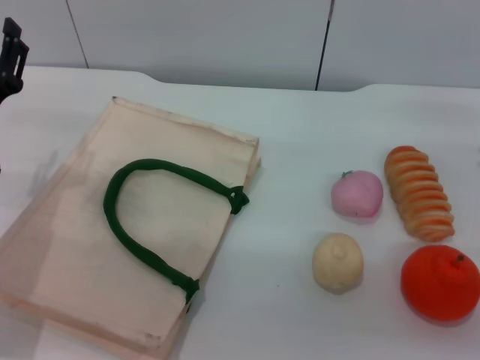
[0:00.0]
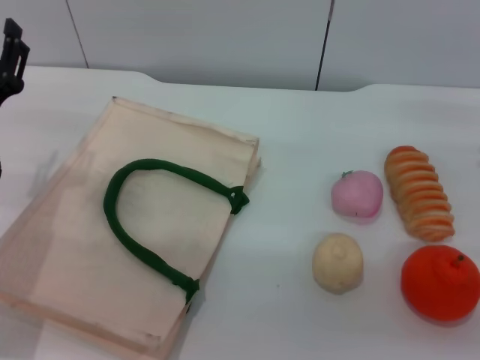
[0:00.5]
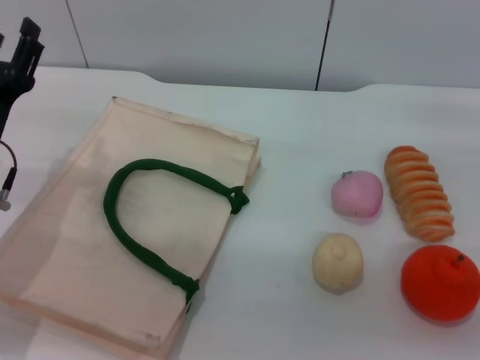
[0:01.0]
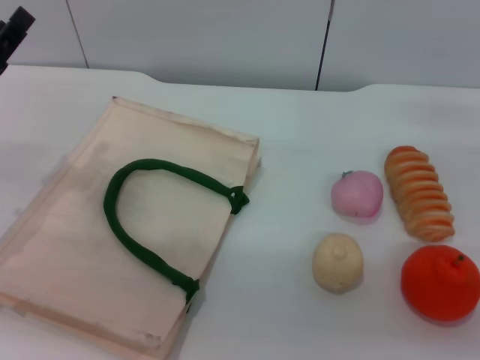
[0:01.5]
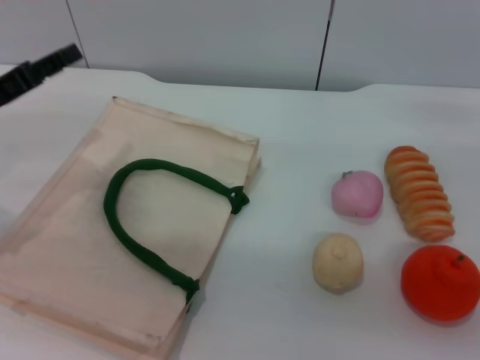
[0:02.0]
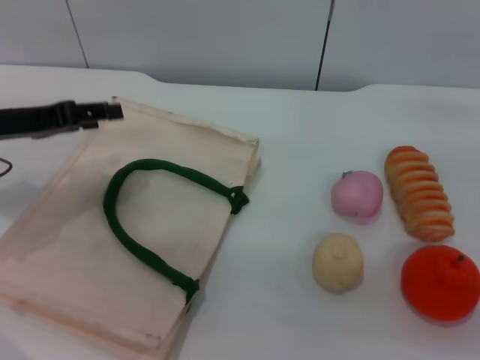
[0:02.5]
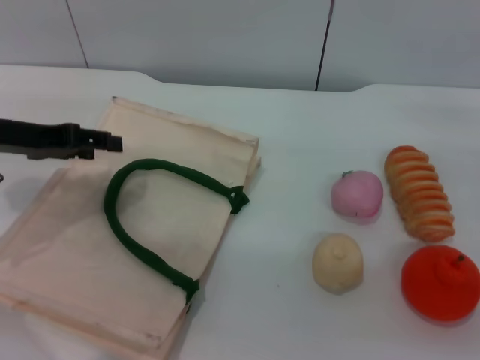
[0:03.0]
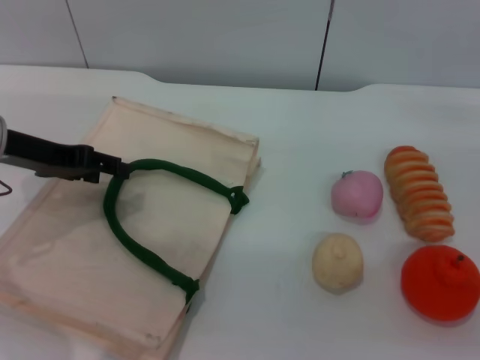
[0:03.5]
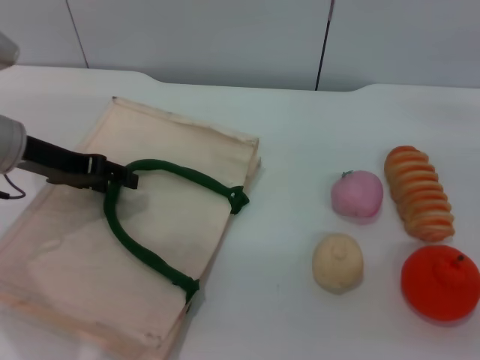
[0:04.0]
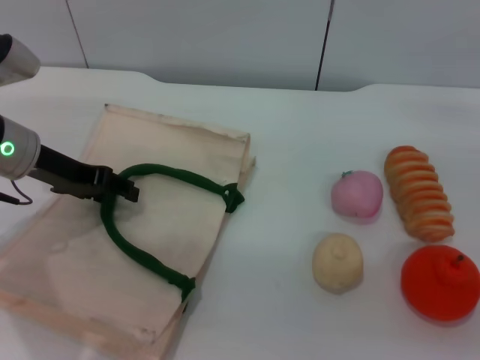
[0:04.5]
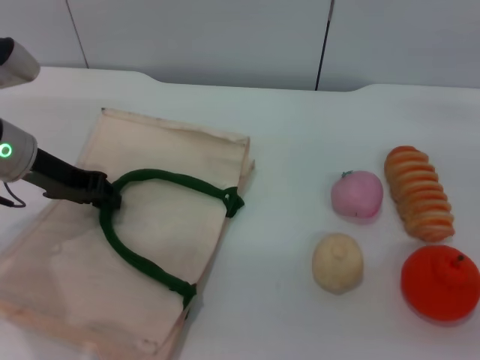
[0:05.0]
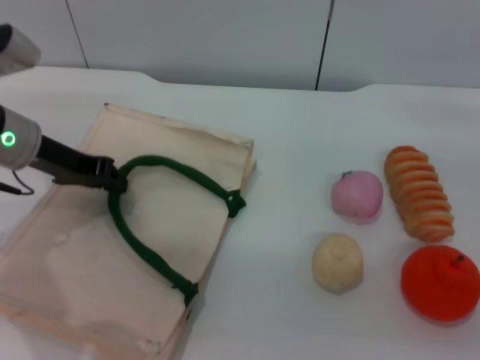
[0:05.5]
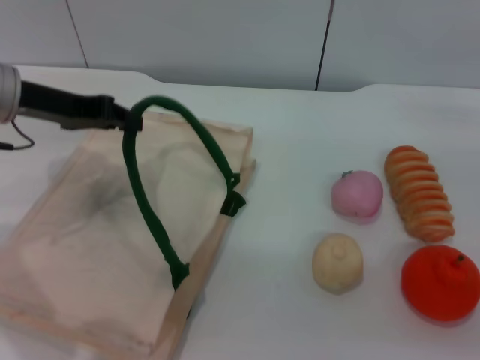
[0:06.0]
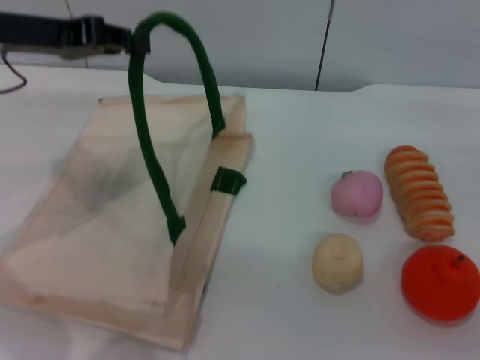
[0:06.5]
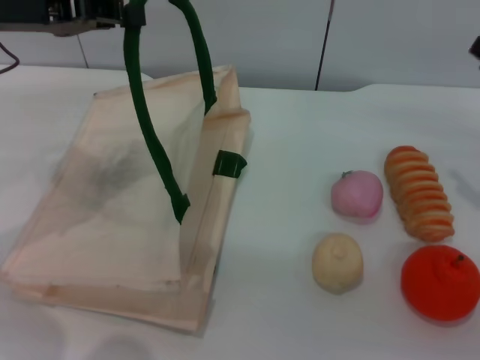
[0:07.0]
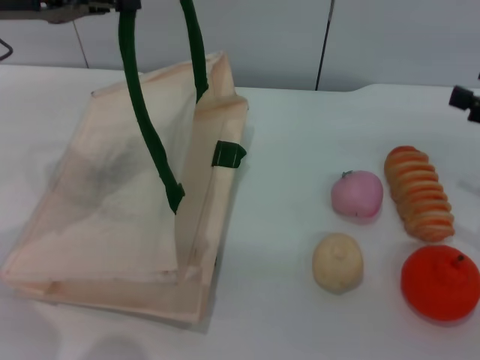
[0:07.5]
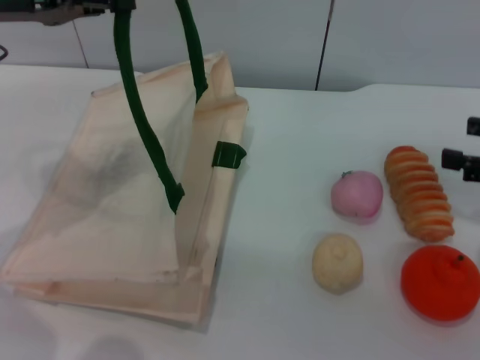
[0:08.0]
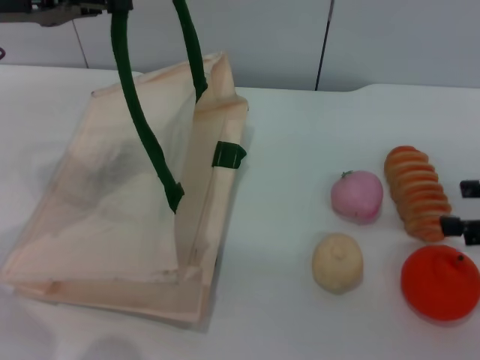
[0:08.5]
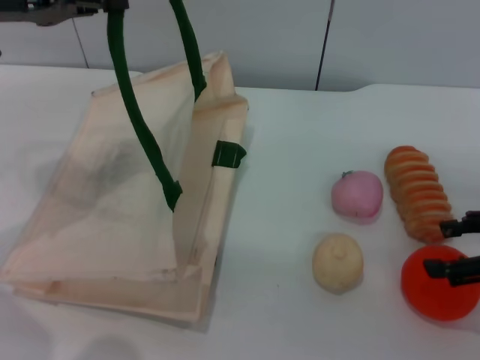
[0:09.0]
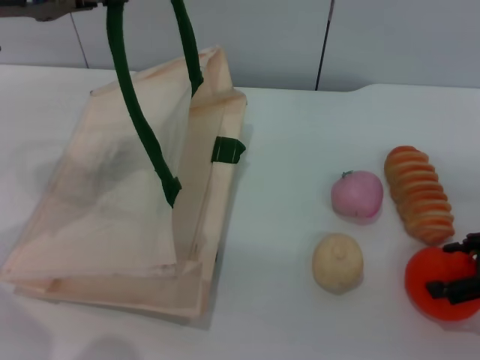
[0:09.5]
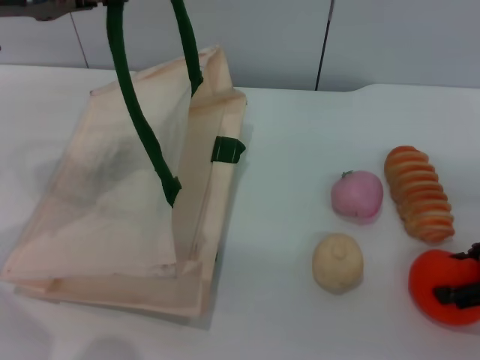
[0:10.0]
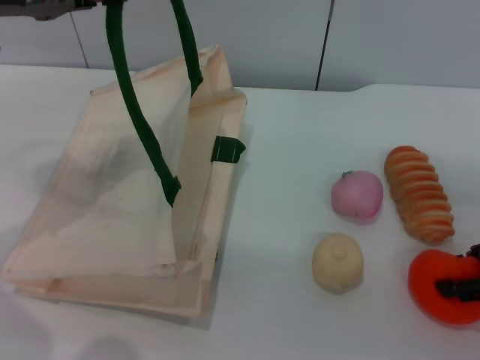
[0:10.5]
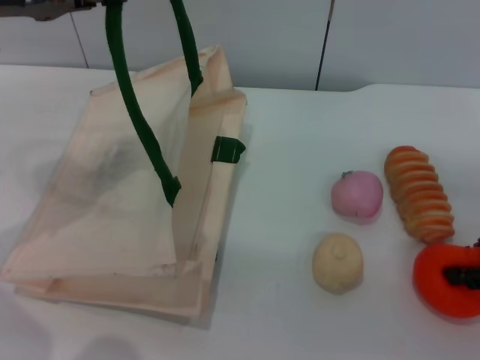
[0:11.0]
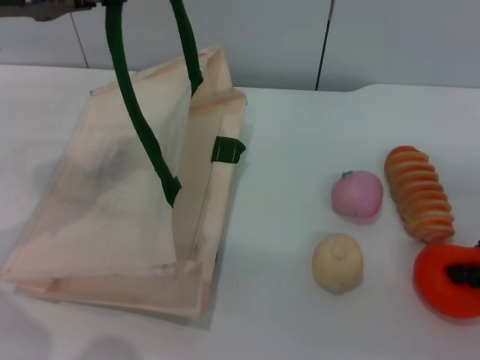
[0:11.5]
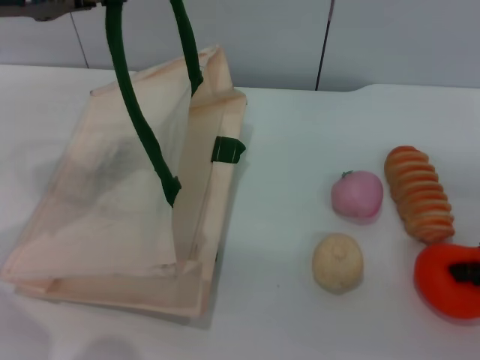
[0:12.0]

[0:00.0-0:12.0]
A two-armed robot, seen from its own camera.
Task of the whole recording: pick up the orange from the table and place it in the white handbag.
Step, 0:00.0 to 0:07.0: Lift the woven bag with the left gripper to open it.
0:00.0 to 0:02.0: The left gripper moves upward and to the left, approximately 10 cm.
0:02.0 to 0:04.0: The left gripper ends up approximately 5 cm from where it was.
0:04.0 to 0:06.0: The left gripper closes.
0:06.0 to 0:08.0: The grippers both shift upward by some 10 cm.
0:10.0 to 0:12.0: The right gripper closes up.

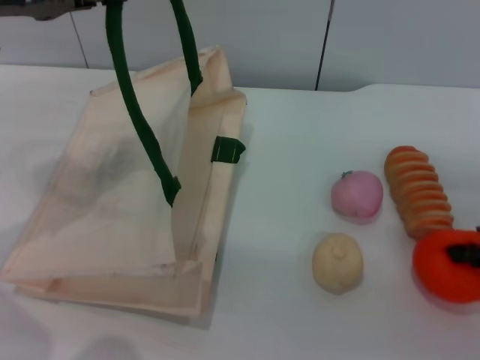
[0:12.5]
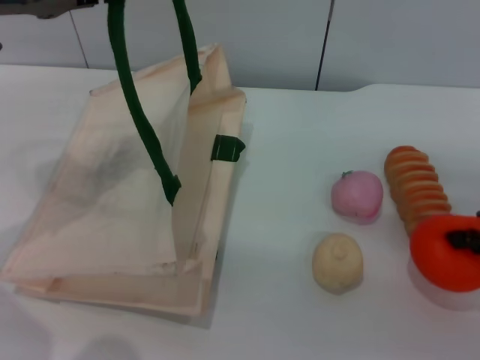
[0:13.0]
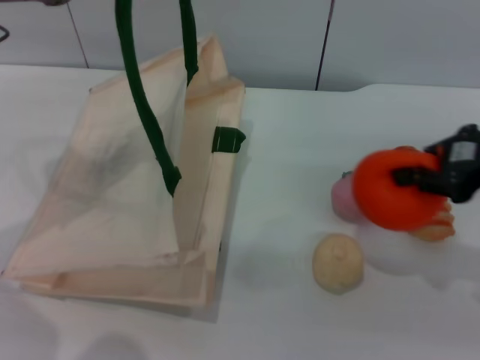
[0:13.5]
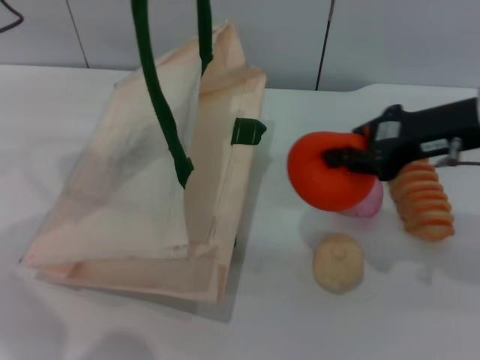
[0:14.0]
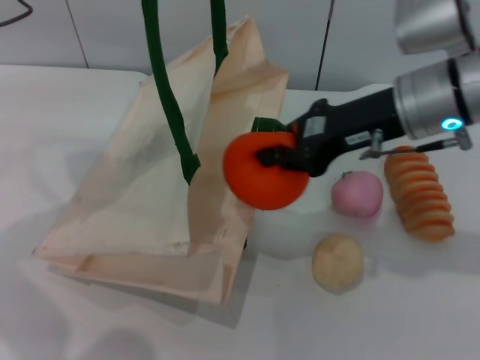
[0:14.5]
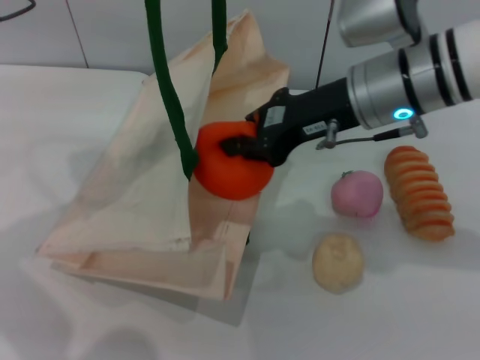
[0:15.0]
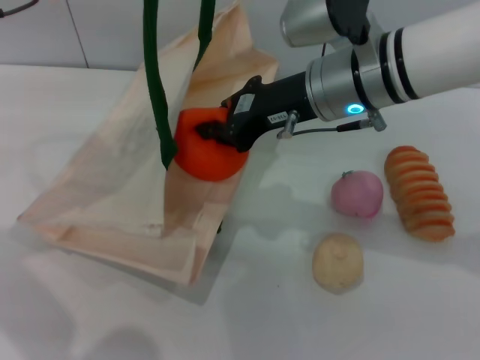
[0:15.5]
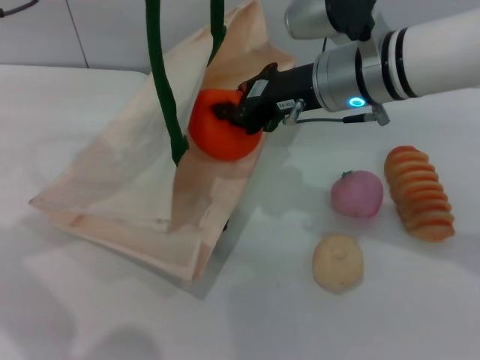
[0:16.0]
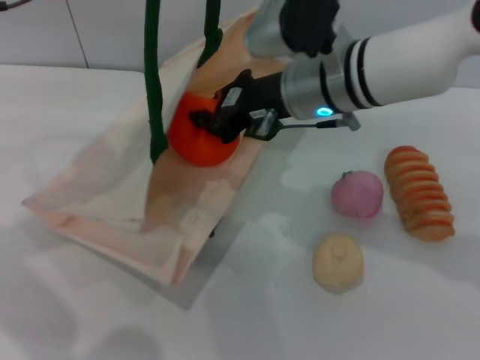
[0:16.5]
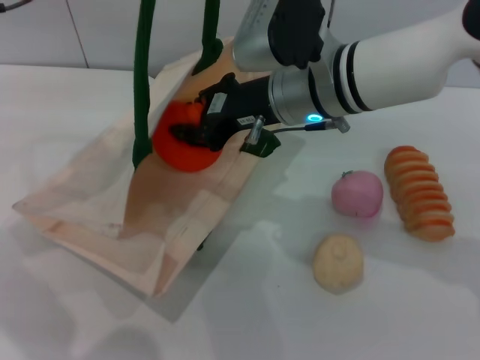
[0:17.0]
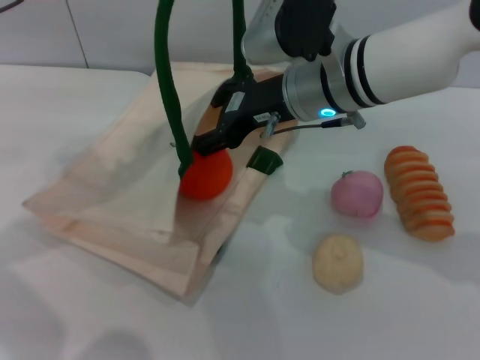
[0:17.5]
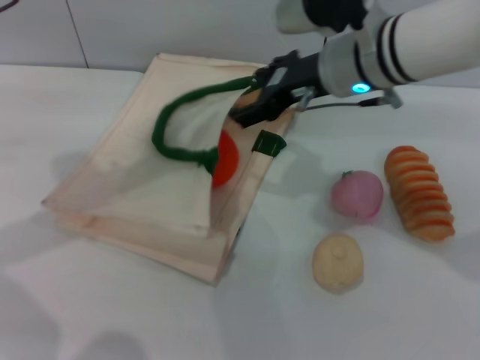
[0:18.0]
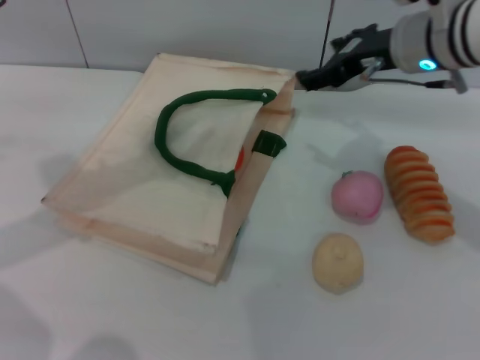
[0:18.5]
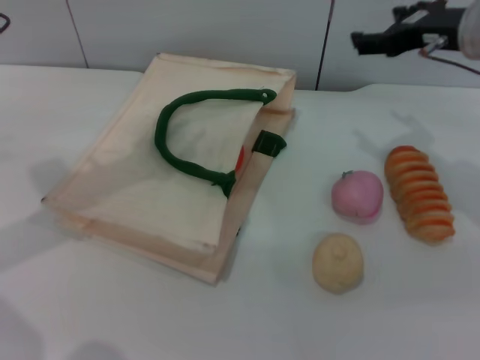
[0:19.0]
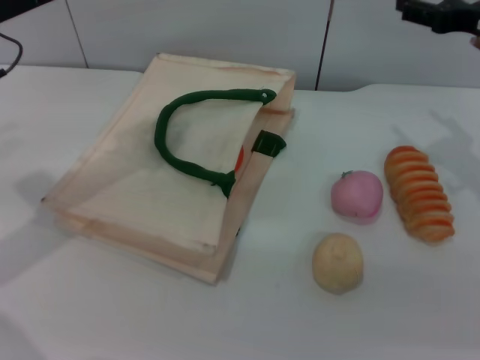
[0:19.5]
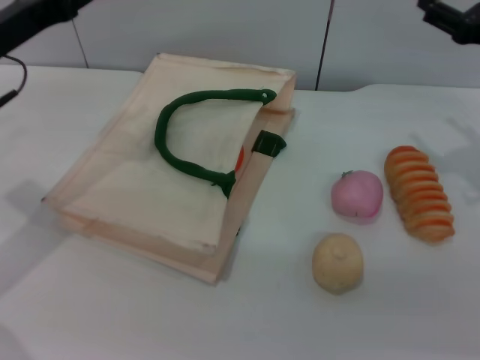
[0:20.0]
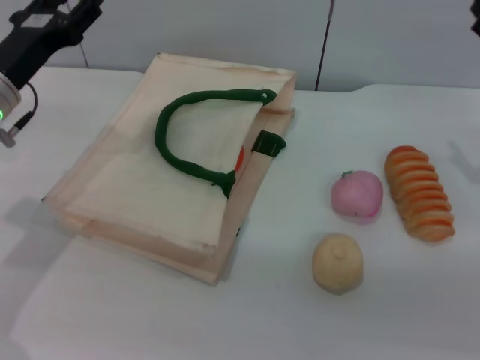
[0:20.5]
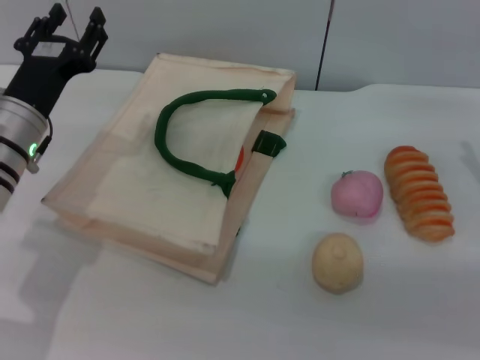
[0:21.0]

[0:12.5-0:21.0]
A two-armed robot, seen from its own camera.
Task of the whole recording: pick up the orange from the table and place it in the white handbag.
Step, 0:13.0 to 0:17.5: Place the orange into the woven bag with the right gripper.
Step, 0:18.0 to 0:19.0: Lower the woven bag with the left gripper to close it.
0:12.5 to 0:14.5: The right gripper goes about 20 cm to the left and forward.
0:14.5 to 0:16.5: The right gripper moves to the left, roughly 10 cm.
0:16.5 to 0:19.0: The left gripper moves about 5 cm, and opens up, while the right gripper heads to the right, covering roughly 15 cm, and opens its fingers.
0:19.0 to 0:21.0: The left gripper heads downward, covering roughly 15 cm. Meanwhile the right gripper shifts roughly 15 cm downward, to the right and backward.
